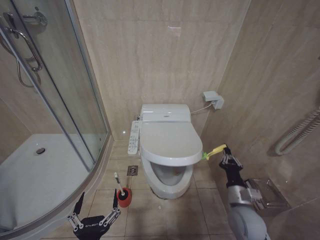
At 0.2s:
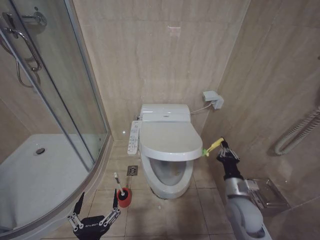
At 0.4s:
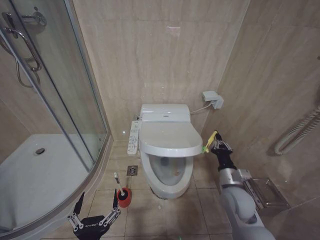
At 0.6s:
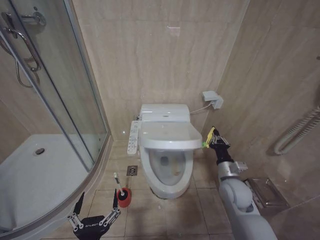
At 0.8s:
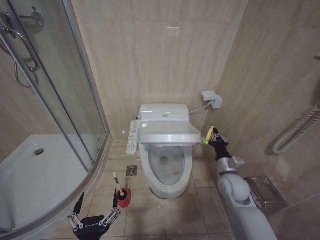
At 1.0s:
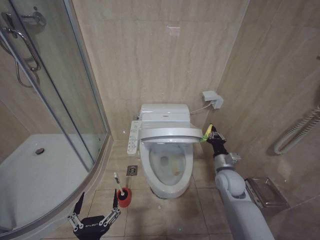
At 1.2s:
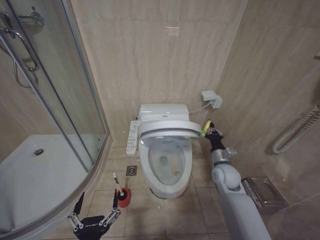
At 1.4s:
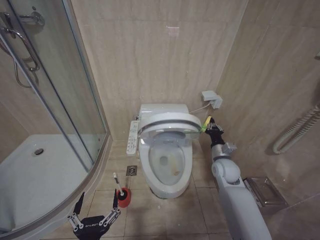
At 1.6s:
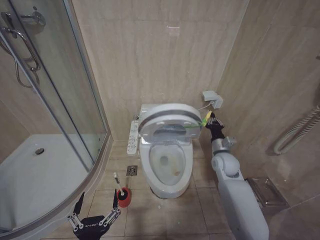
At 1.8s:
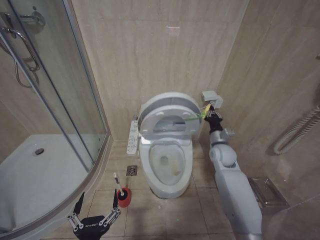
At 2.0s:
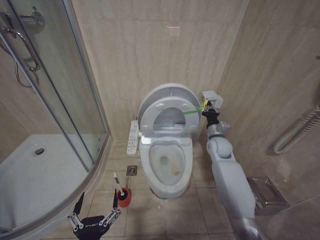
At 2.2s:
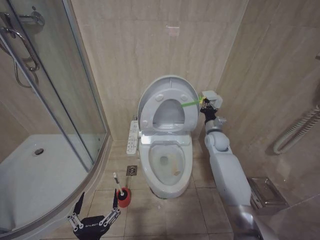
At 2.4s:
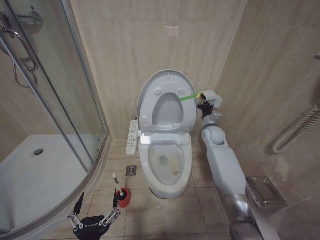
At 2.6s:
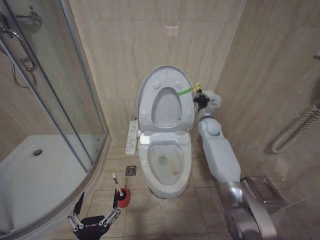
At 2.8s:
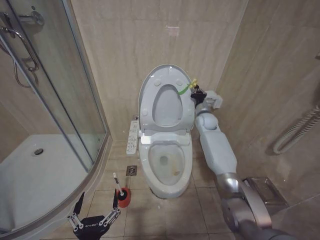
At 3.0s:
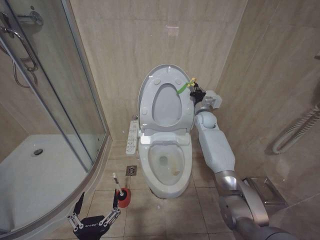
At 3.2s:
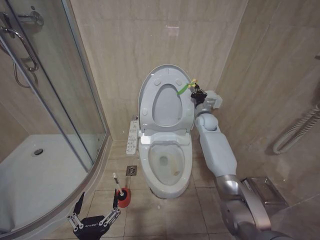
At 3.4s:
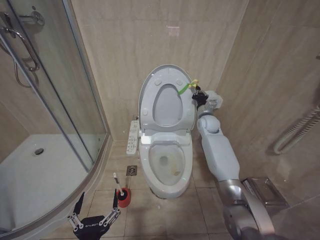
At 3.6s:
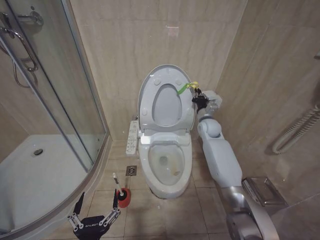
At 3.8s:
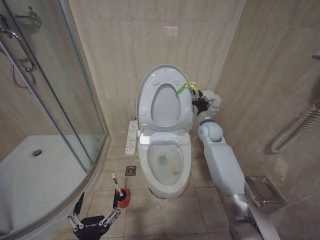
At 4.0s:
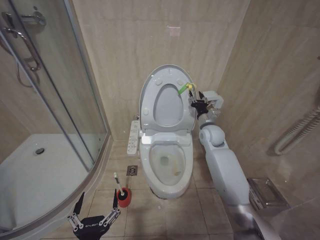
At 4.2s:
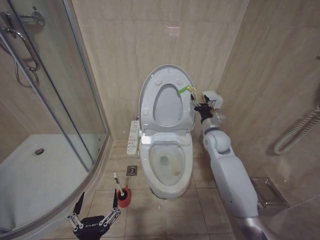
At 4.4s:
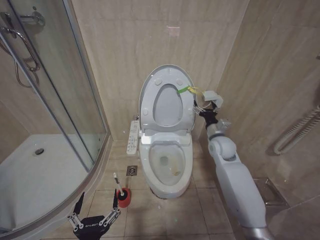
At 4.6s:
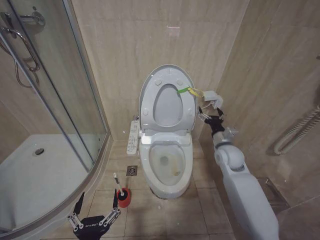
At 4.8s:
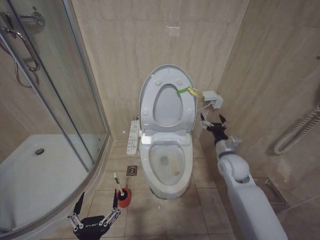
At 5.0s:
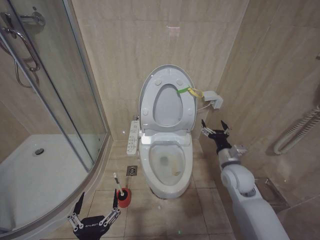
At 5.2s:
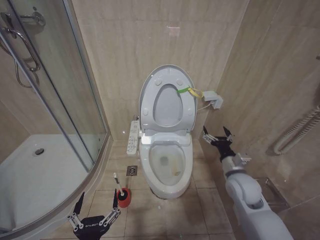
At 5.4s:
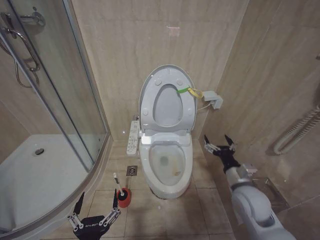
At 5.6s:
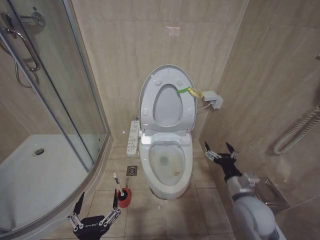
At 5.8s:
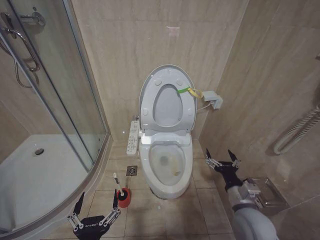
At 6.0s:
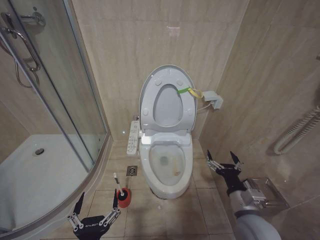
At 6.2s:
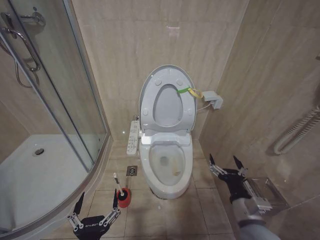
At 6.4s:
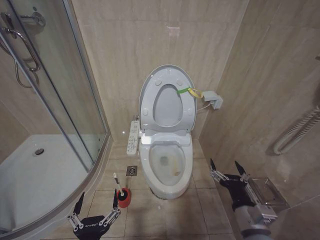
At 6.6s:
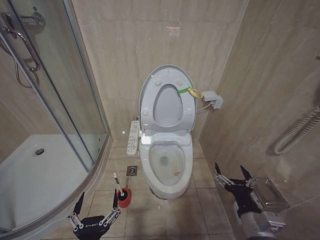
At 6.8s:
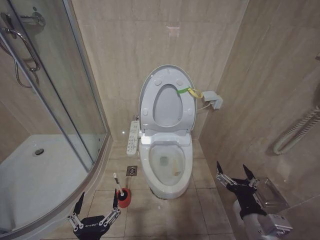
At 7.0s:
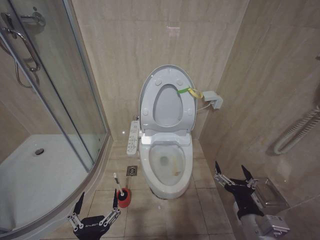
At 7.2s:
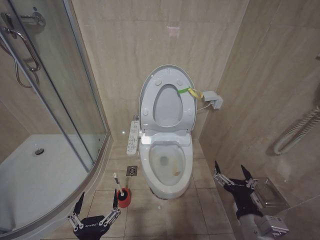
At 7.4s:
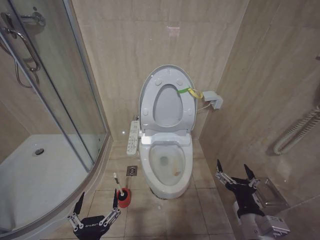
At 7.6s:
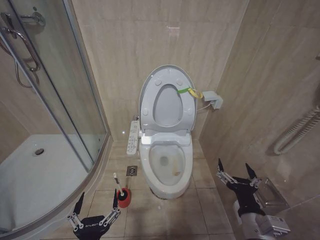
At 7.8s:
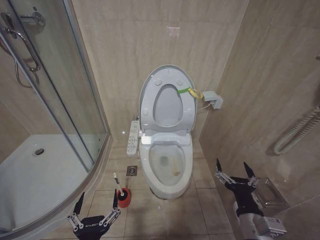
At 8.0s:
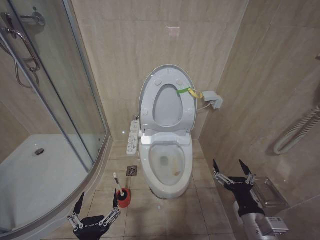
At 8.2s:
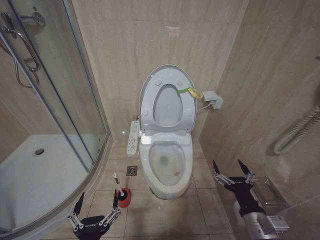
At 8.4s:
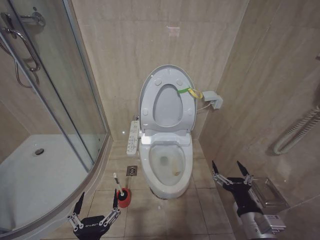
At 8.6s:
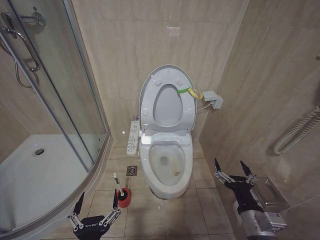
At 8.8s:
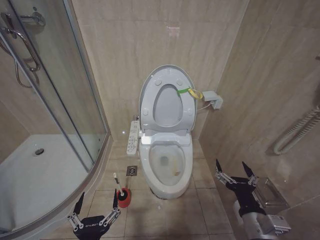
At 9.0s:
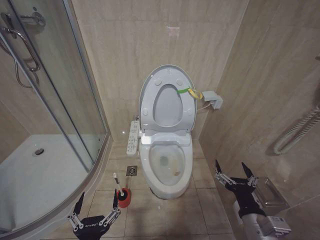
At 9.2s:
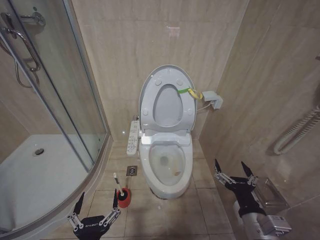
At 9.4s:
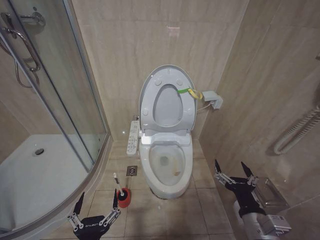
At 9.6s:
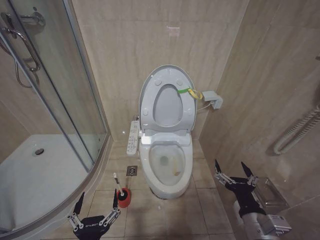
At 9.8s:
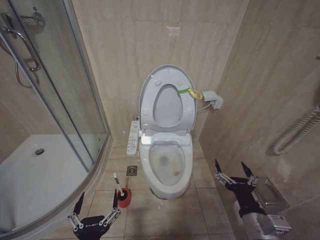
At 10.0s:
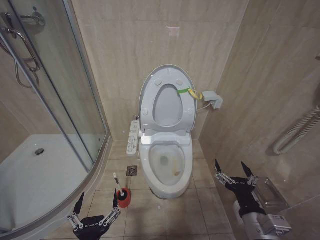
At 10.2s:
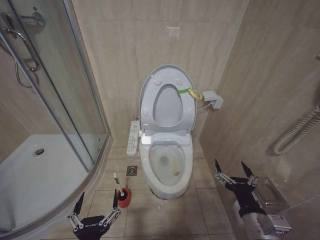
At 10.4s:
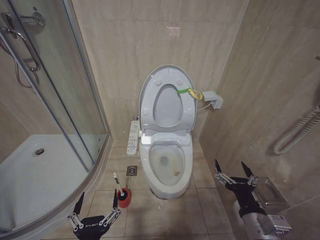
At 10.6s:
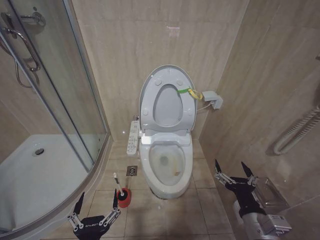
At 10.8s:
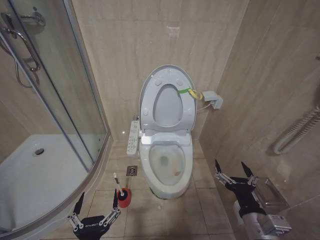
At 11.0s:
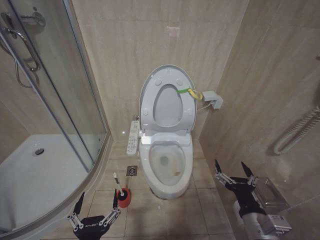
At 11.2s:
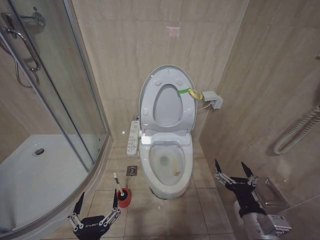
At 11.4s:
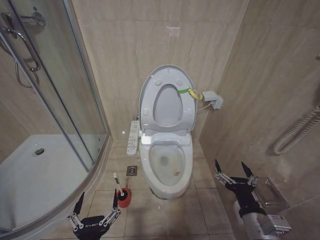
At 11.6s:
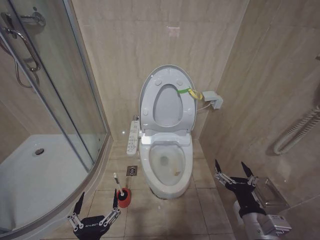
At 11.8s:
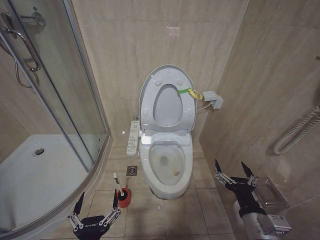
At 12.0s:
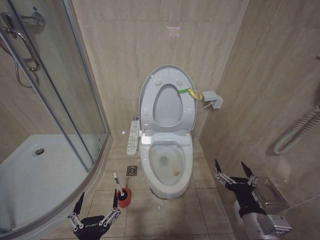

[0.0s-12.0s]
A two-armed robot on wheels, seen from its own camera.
Task of the whole recording: Open the toilet lid, clean the toilet bowl with a toilet brush, close the toilet lid, and flush.
0.0s to 1.6s: The right gripper heads forward, covering about 20 cm.
1.6s to 3.0s: The right gripper goes roughly 20 cm forward and upward.
3.0s to 4.4s: The right gripper travels backward by roughly 15 cm, and opens up.
4.4s to 6.0s: The right gripper shifts about 25 cm backward.
6.0s to 7.6s: The right gripper shifts approximately 5 cm backward.
9.0s to 12.0s: Both grippers stay about where they are.

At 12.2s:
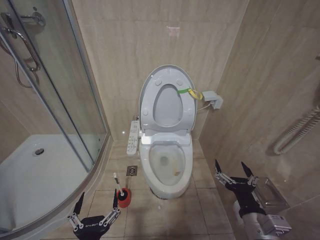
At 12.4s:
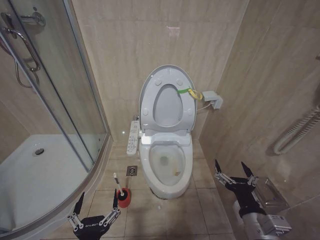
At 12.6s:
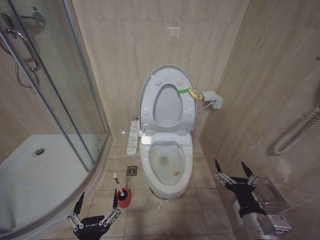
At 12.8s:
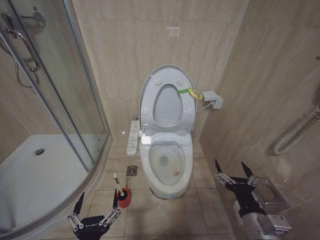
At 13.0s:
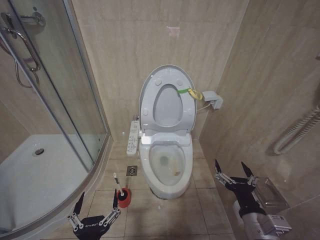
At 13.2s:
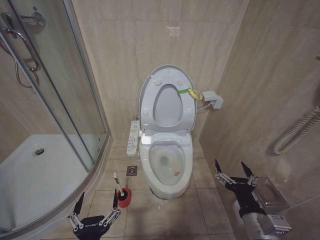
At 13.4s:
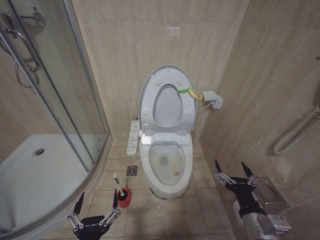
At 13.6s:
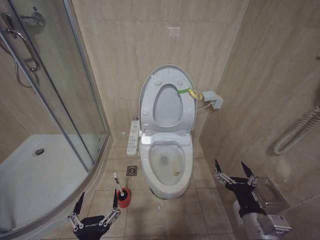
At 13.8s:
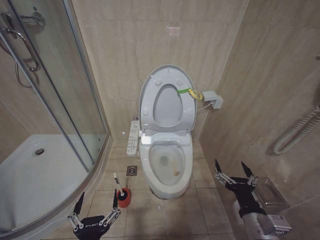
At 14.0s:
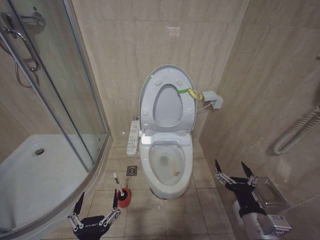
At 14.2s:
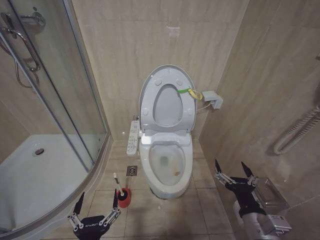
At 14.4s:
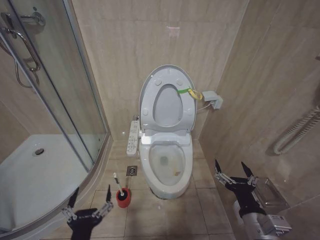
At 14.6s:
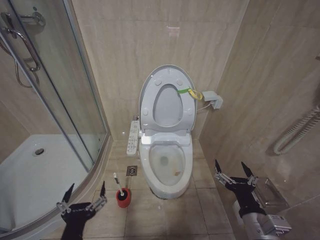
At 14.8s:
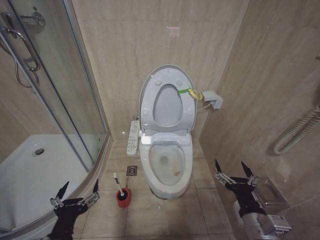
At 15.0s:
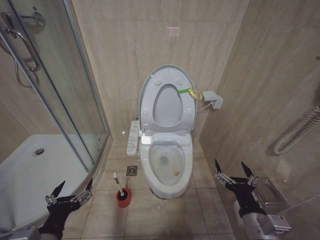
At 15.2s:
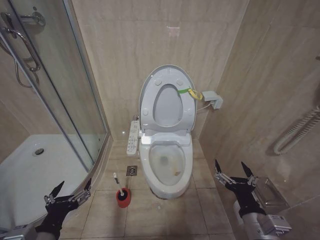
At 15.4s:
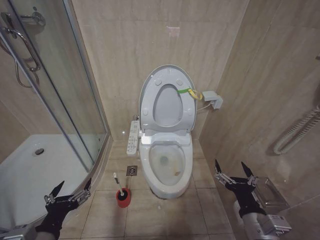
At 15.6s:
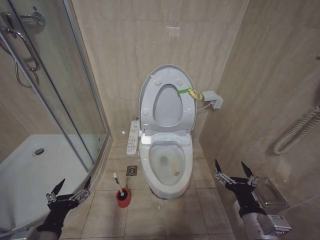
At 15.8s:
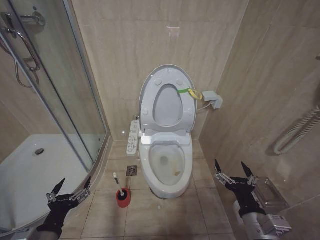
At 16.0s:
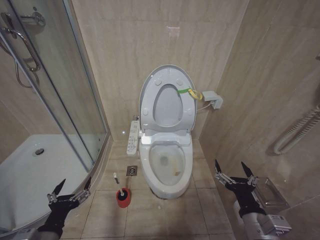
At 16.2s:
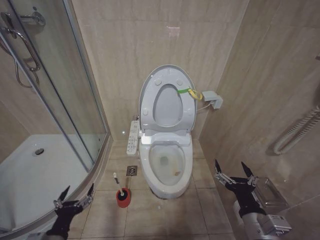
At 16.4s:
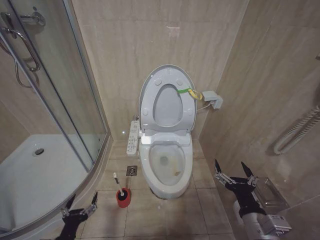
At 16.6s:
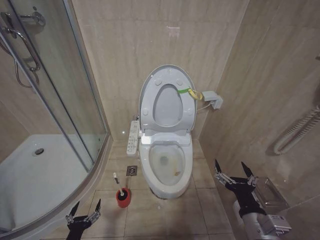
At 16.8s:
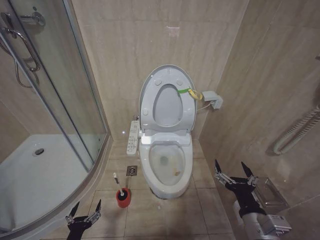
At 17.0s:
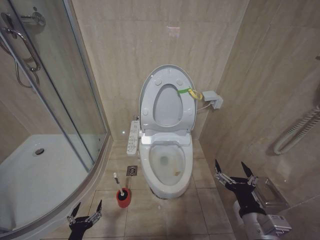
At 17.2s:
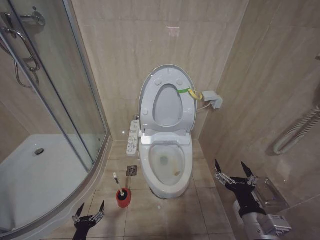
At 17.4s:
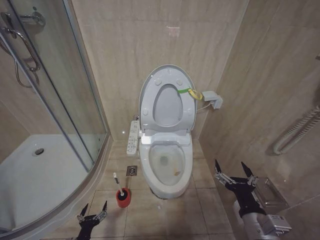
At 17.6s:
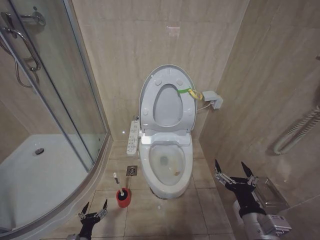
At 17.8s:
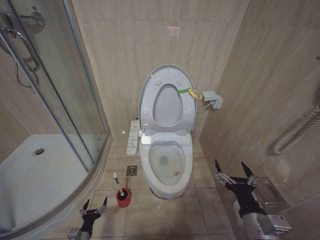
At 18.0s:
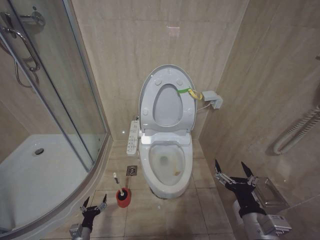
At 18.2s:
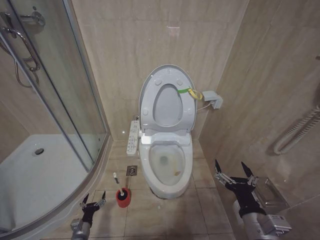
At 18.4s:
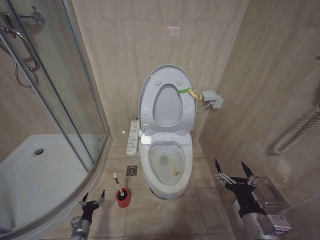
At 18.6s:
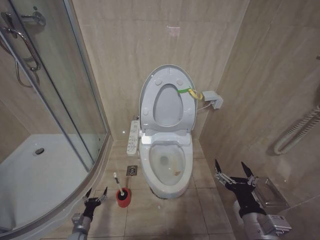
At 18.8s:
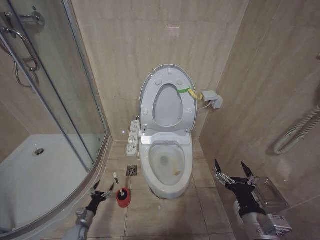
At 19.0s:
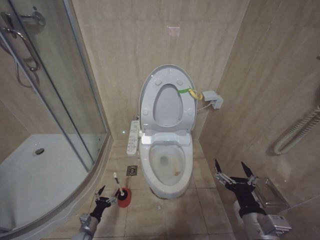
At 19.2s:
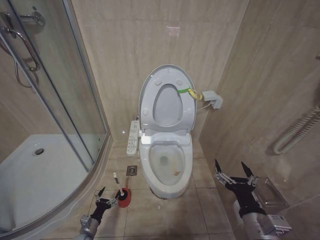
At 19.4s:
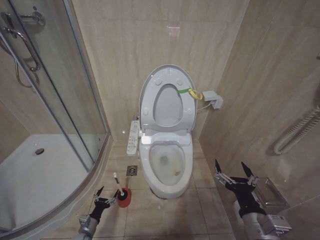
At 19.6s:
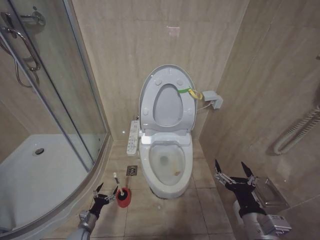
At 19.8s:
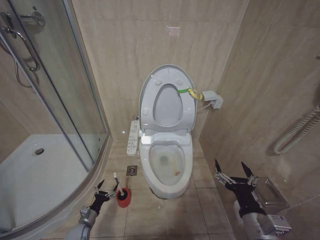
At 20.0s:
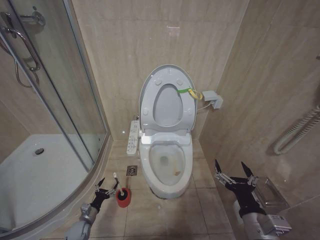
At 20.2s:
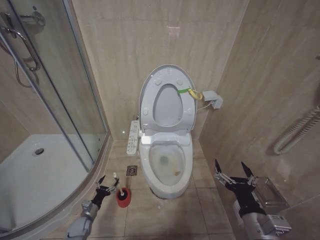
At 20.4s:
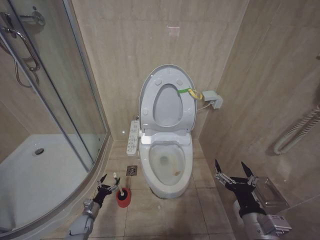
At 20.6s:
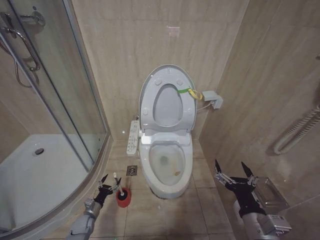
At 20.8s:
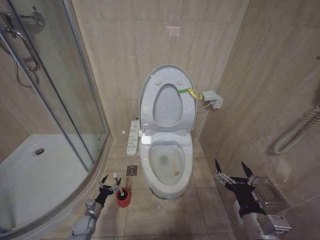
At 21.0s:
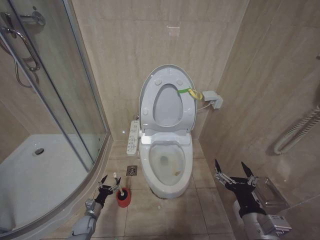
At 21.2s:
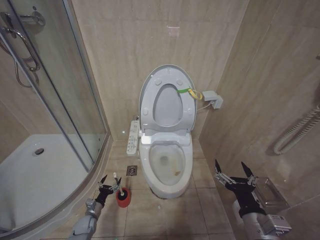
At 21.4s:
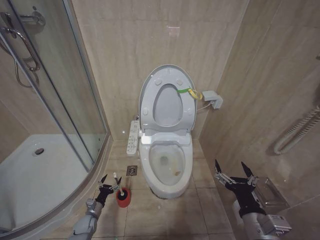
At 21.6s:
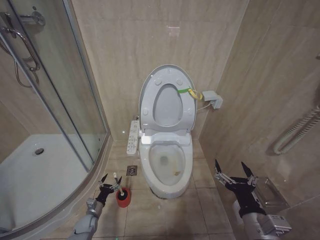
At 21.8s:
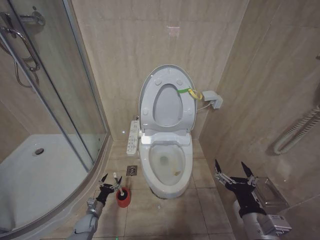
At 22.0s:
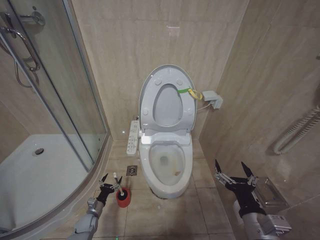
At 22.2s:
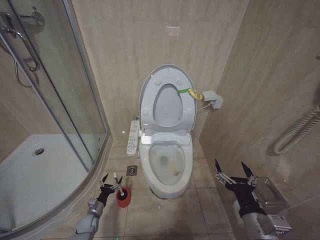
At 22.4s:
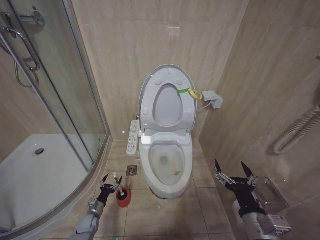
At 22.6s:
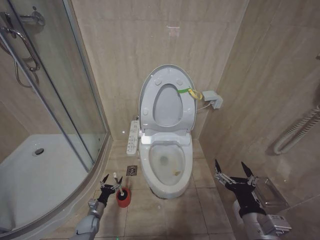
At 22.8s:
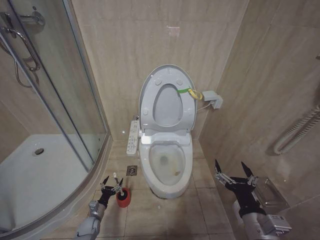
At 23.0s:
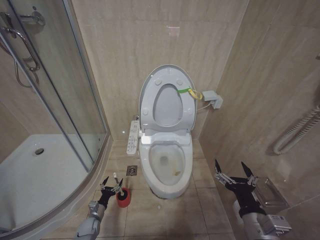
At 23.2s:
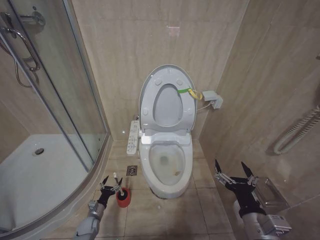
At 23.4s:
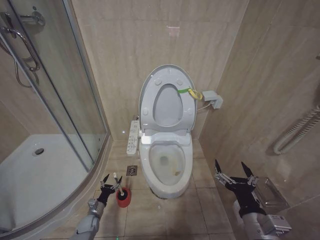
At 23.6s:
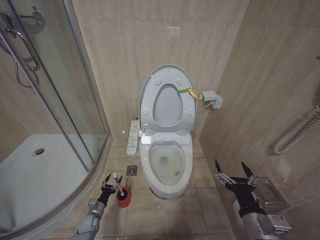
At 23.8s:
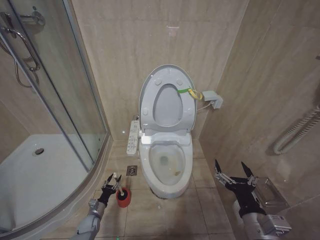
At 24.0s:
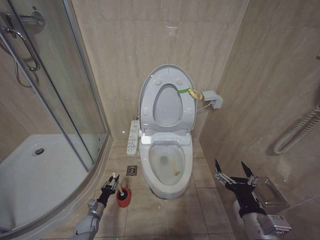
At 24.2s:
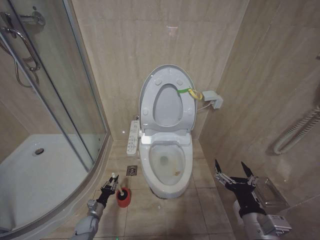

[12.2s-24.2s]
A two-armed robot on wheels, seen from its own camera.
Task of the whole recording: Open the toilet lid, clean the toilet bowl with a toilet brush, close the toilet lid, and flush.
12.2s to 13.8s: Both grippers stay put.
13.8s to 15.2s: The left gripper moves to the left, forward and upward, approximately 15 cm.
15.2s to 16.6s: The left gripper shifts approximately 20 cm downward.
16.6s to 18.2s: The left gripper moves downward and forward, roughly 20 cm.
18.2s to 19.8s: The grippers move only a little.
19.8s to 21.2s: The grippers move only a little.
21.2s to 22.6s: Both grippers stay about where they are.
